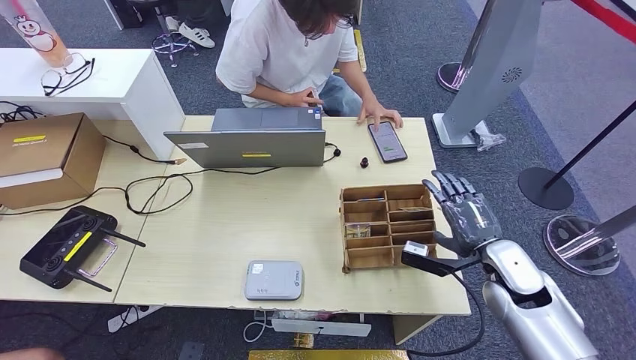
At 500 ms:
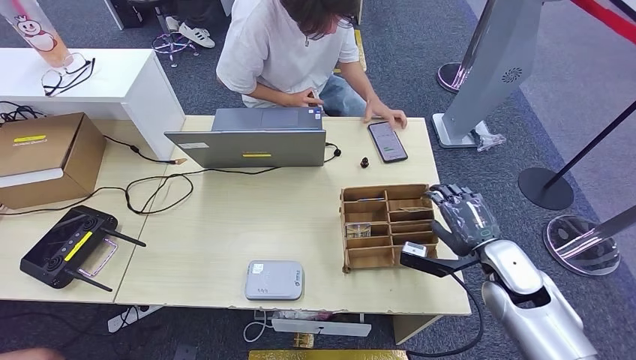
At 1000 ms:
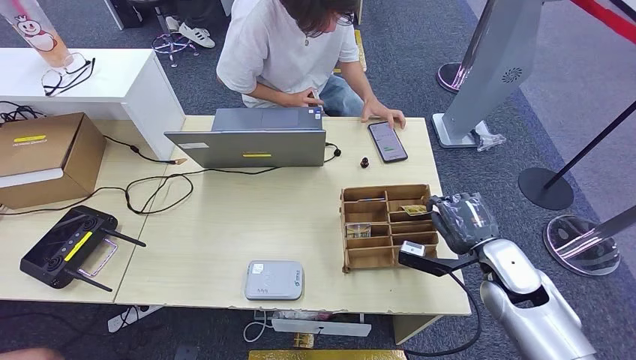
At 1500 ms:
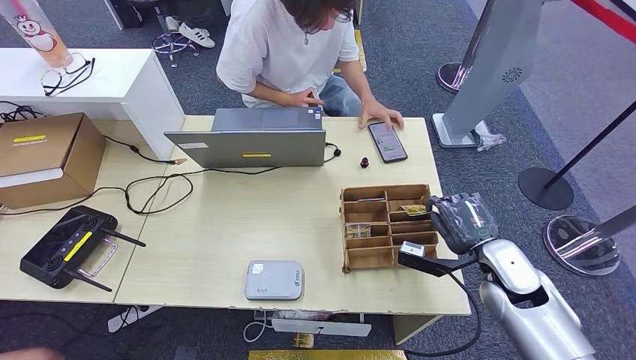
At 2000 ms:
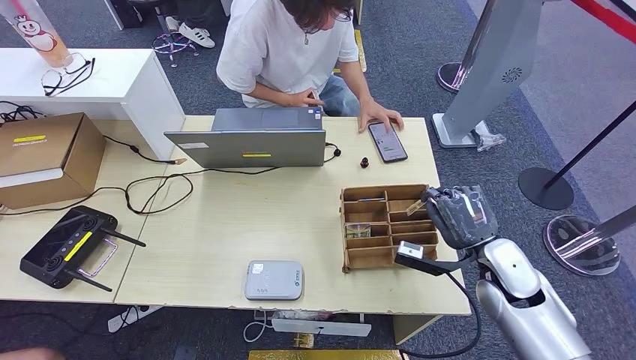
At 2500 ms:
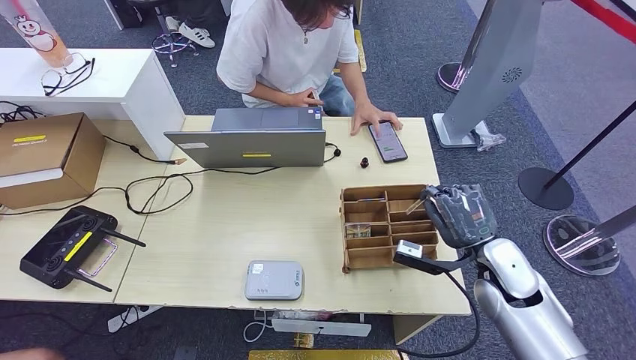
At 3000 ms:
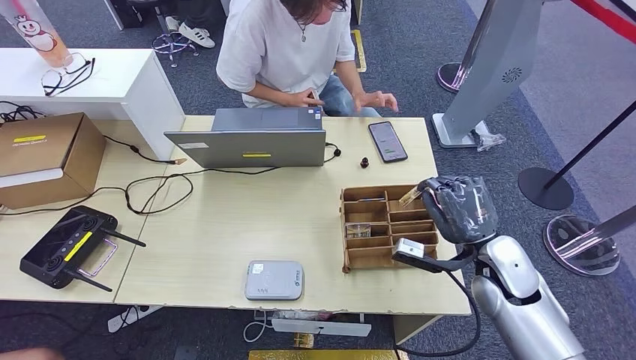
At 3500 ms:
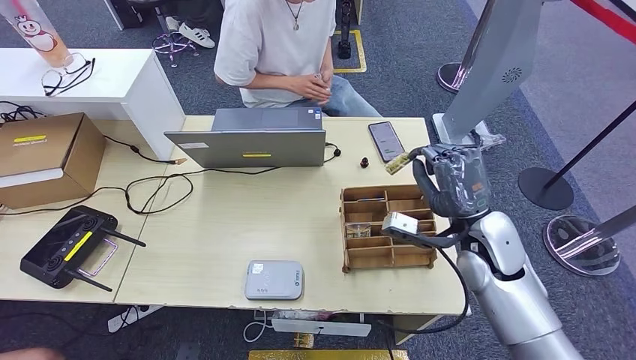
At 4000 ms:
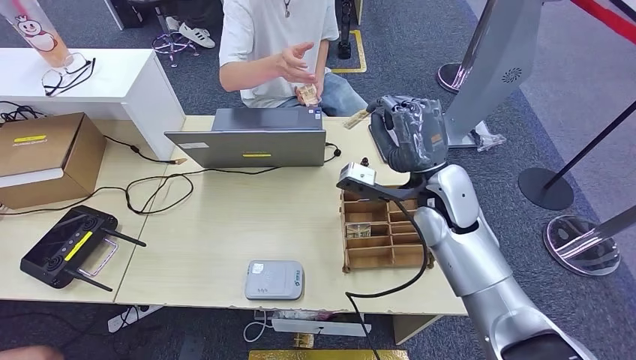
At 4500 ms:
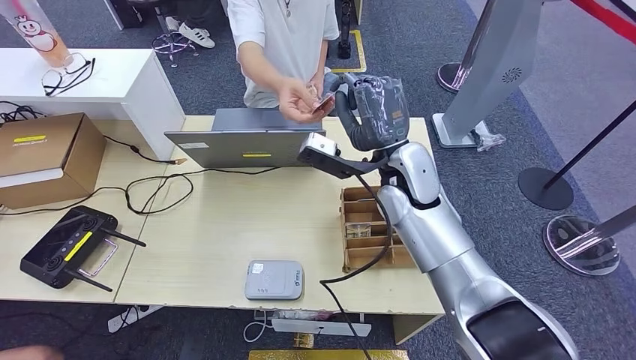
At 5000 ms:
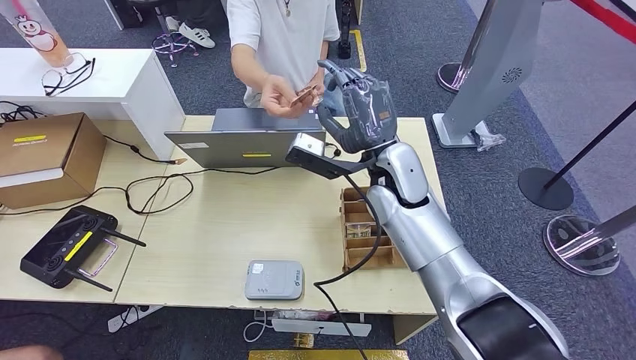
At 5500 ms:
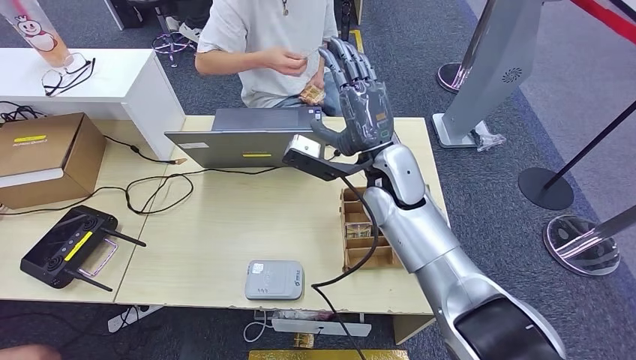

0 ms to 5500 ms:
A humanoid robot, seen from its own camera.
Step, 0 ms to 3000 ms: Pick up the room key from the key card box.
Step, 3500 ms to 5500 ms: Hand the room key to the person.
0 ms to 2000 ms: The hands stay close to where they were, moving slightly.
2000 ms to 3500 ms: The right hand travels upward by roughly 5 cm.
3500 ms to 5500 ms: The right hand heads to the left, forward and upward, covering some 20 cm.
